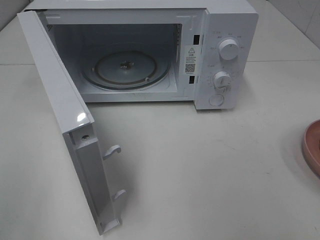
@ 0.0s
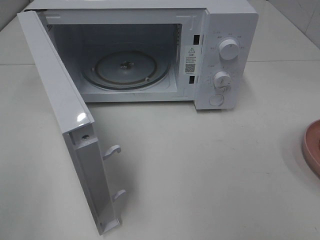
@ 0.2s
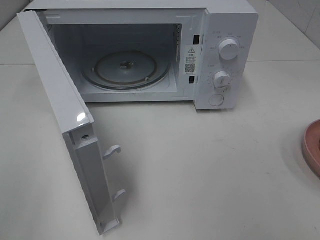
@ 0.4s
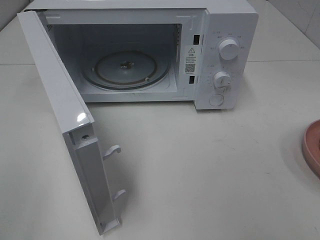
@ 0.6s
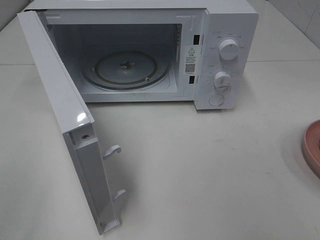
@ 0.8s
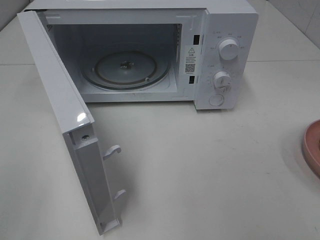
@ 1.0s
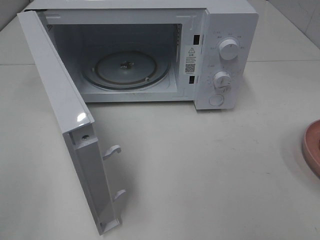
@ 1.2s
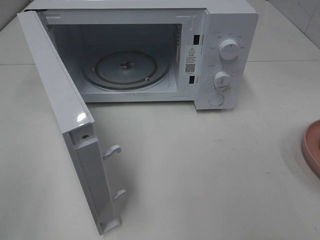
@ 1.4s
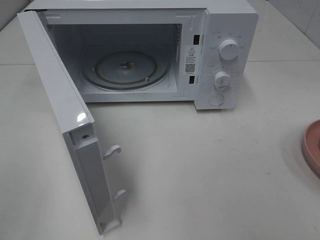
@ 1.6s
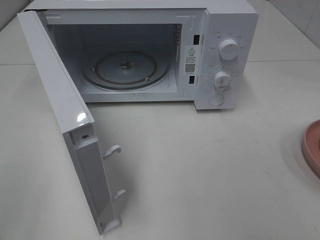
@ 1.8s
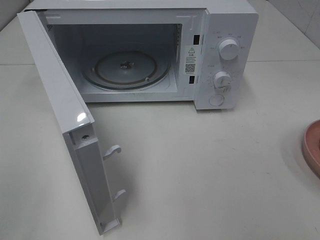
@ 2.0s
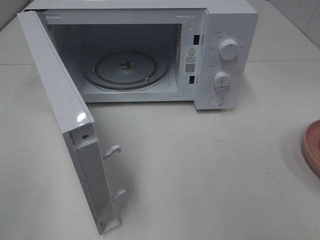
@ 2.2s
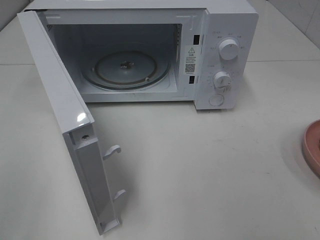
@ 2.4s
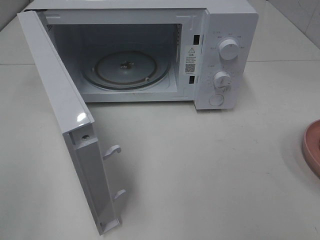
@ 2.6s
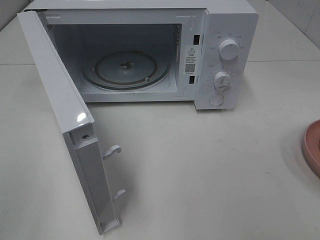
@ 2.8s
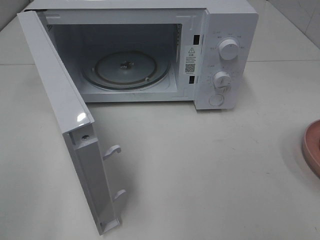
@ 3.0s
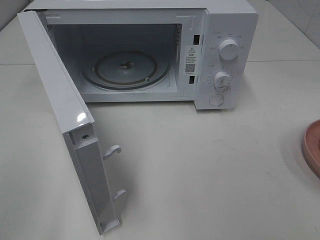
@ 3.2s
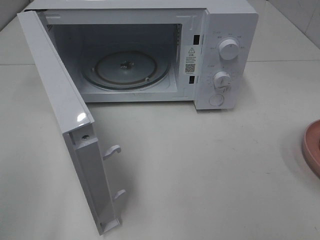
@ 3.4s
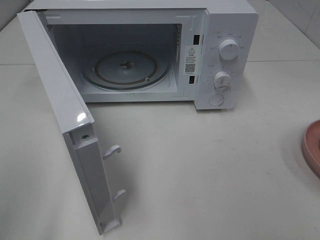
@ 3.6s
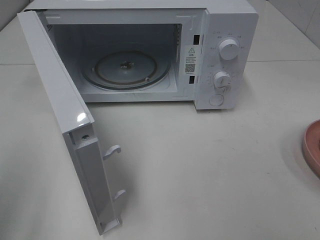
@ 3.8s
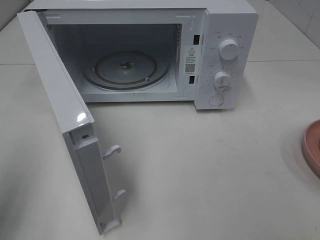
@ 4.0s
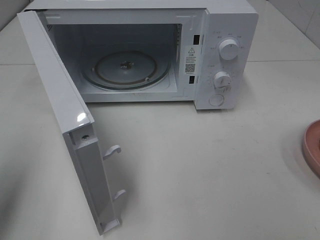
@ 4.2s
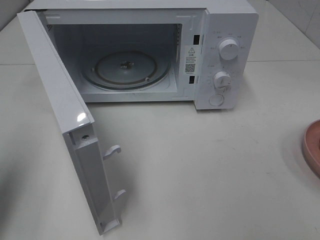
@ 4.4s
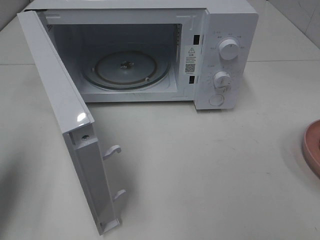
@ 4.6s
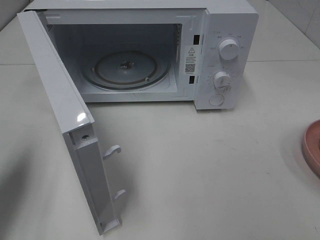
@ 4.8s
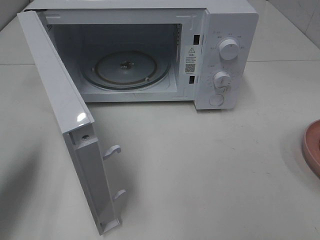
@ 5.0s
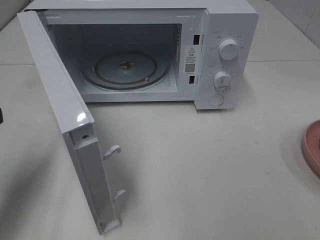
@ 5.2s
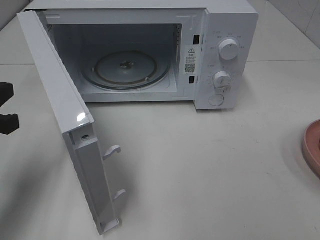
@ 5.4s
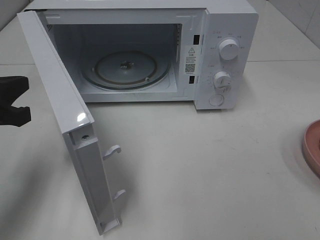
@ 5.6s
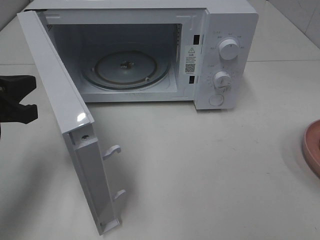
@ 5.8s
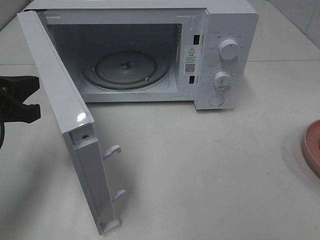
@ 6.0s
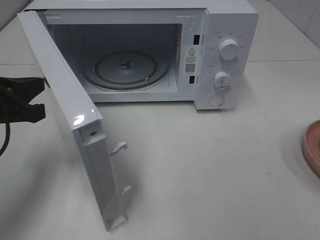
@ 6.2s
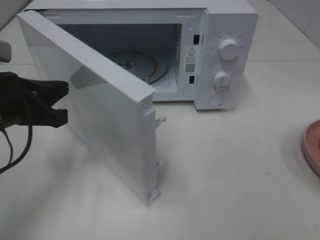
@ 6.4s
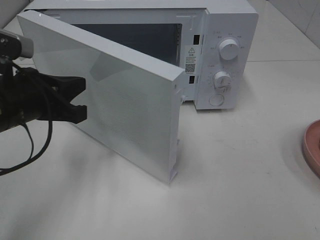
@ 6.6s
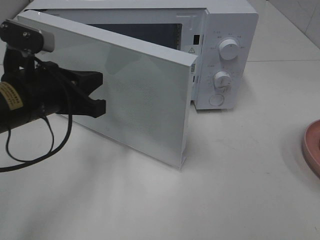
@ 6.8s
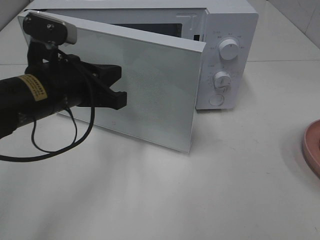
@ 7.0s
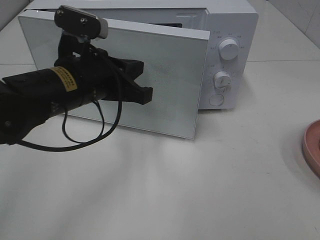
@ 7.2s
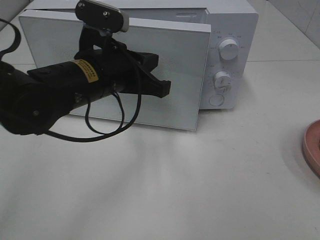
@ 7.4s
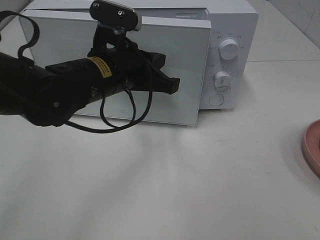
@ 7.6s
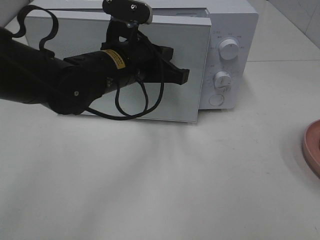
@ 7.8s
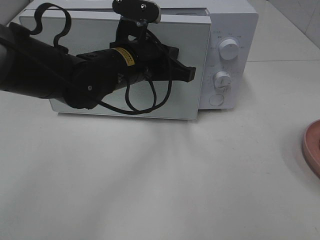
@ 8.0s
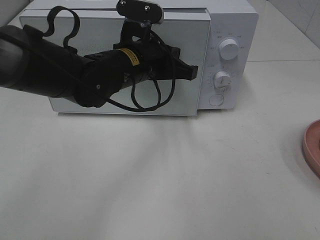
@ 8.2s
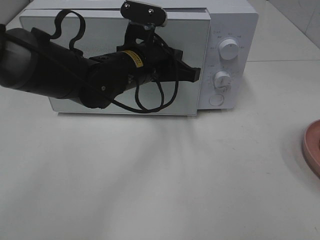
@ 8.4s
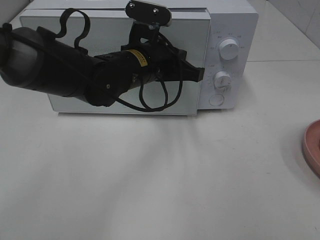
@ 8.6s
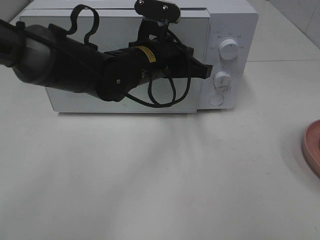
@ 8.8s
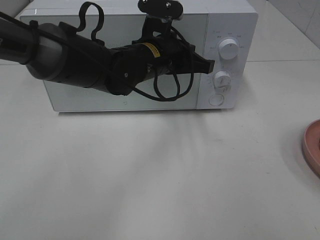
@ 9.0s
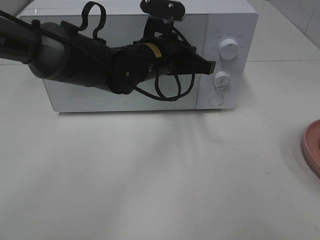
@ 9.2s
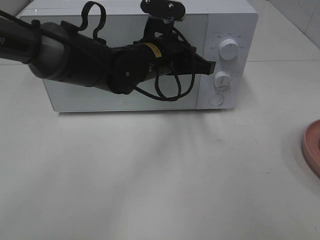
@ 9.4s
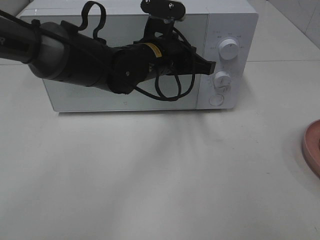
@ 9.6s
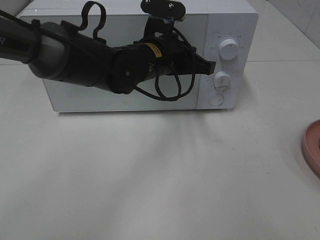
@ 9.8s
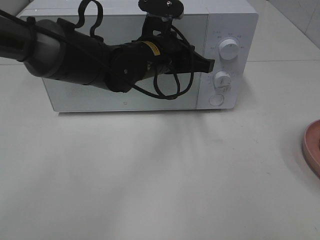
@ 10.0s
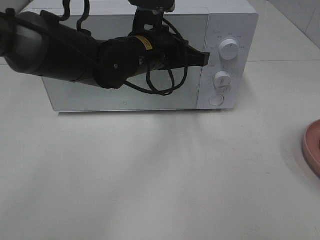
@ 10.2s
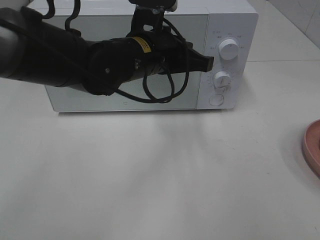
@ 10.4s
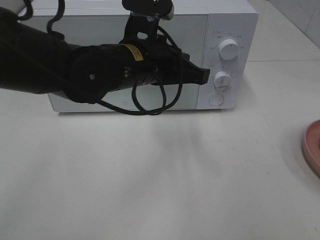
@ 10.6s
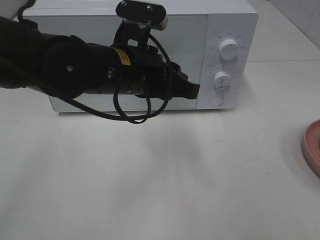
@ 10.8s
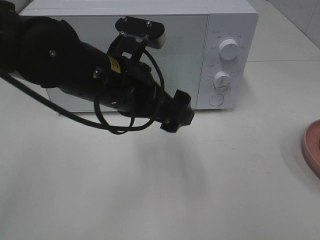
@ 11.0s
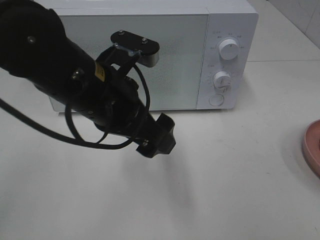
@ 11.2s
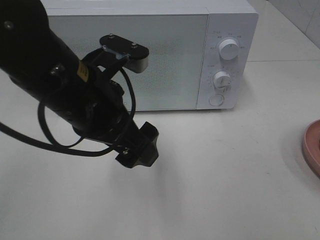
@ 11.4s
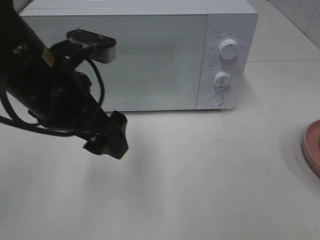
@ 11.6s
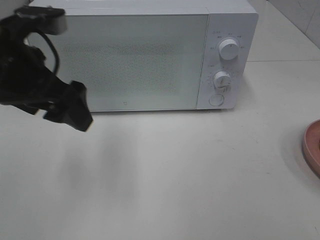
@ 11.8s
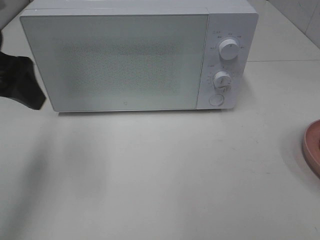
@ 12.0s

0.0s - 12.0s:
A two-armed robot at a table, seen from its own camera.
Task of the whole recording: Heat Sandwich.
Step, 0.0s - 10.2s: Left hand: close the microwave door.
3.0s - 4.4s: The left gripper shifts about 15 cm forward, and closes its fingers.
4.4s - 6.0s: The left gripper heads forward, to the right and downward, covering some 15 cm.
6.0s - 7.6s: The left gripper shifts approximately 20 cm to the right.
7.6s - 9.0s: The left gripper moves forward and to the right, roughly 10 cm.
9.0s - 10.4s: The left gripper moves roughly 5 cm.
10.4s - 12.0s: The left gripper travels to the left by about 25 cm, and opens.

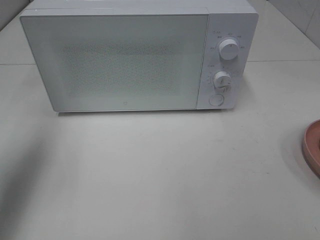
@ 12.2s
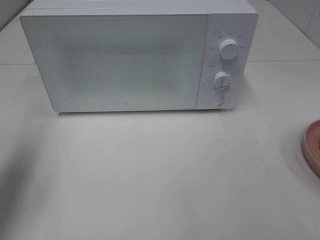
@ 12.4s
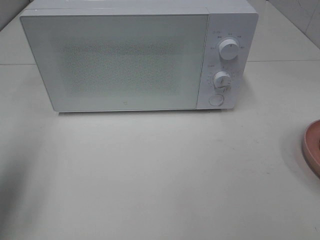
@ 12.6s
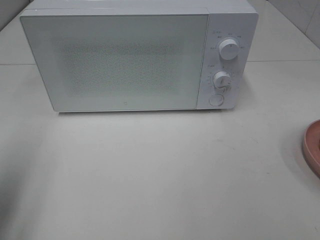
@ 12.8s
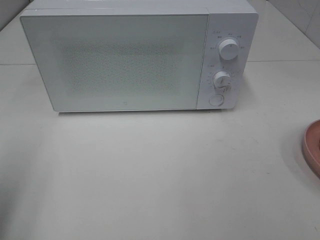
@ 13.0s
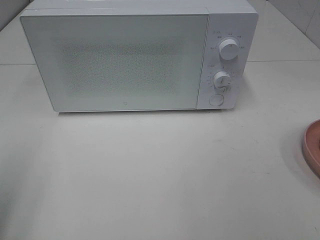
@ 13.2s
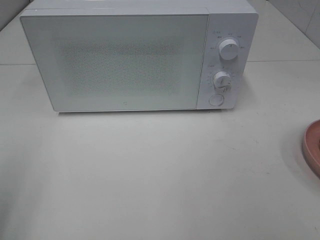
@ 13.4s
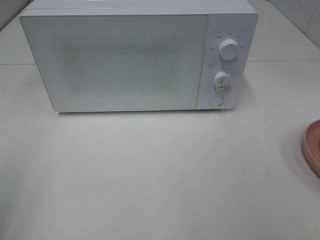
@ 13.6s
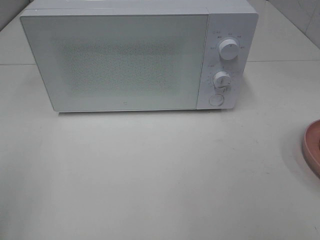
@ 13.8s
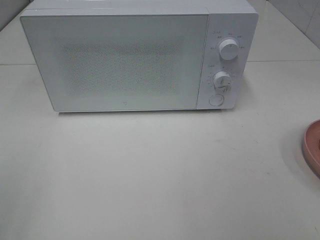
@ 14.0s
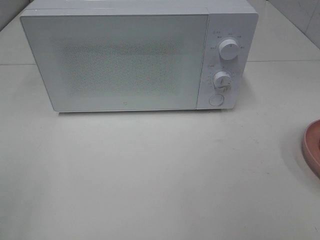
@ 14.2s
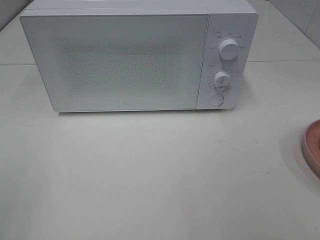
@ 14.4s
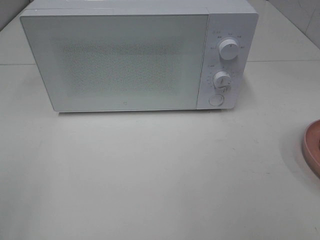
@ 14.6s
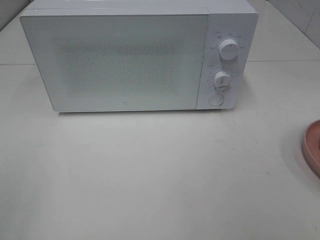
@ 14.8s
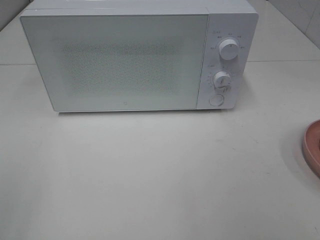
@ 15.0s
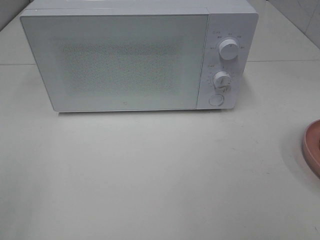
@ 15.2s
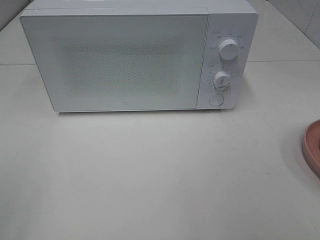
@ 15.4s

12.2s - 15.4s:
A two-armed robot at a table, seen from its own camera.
Task of the whole recording: Heat Sandwich.
12.2s - 13.8s: The left gripper moves backward, roughly 20 cm.

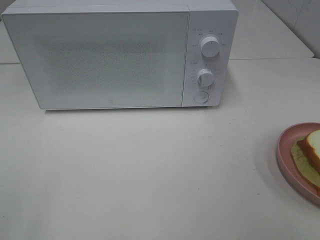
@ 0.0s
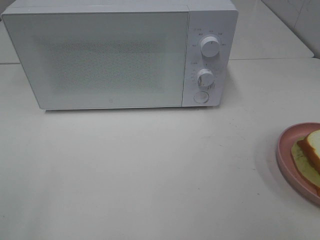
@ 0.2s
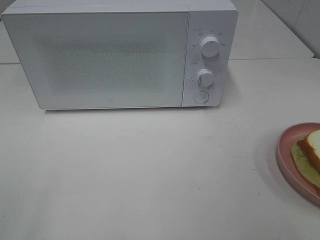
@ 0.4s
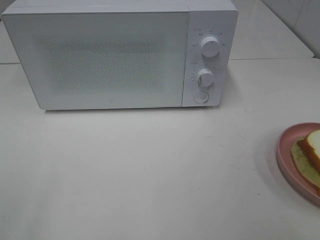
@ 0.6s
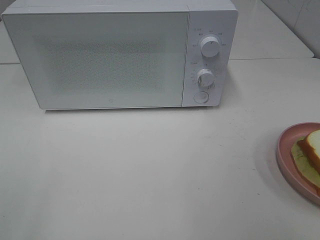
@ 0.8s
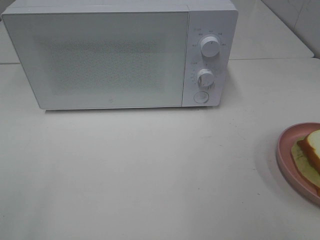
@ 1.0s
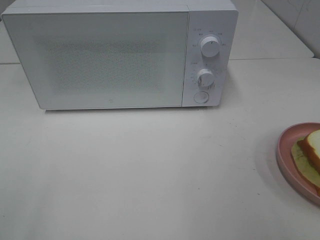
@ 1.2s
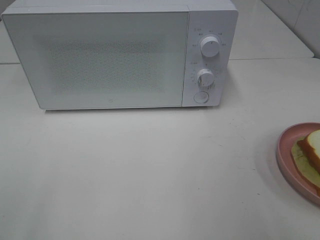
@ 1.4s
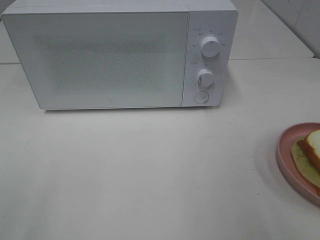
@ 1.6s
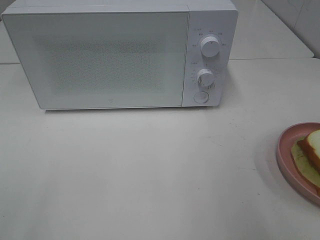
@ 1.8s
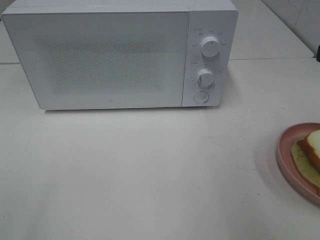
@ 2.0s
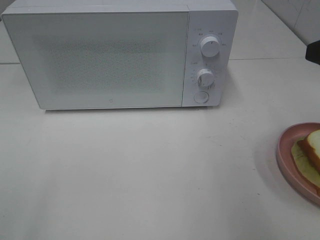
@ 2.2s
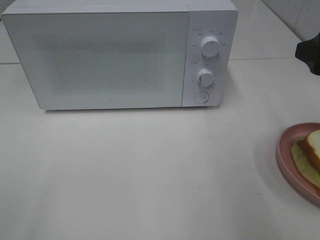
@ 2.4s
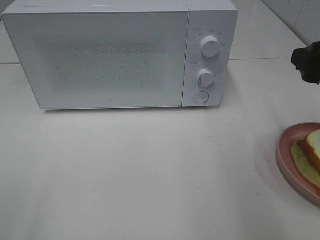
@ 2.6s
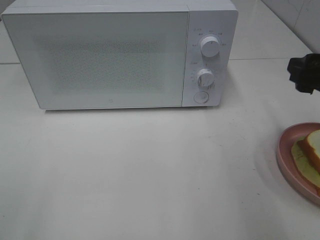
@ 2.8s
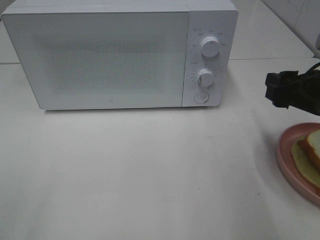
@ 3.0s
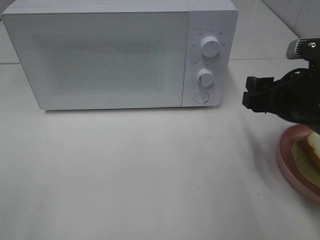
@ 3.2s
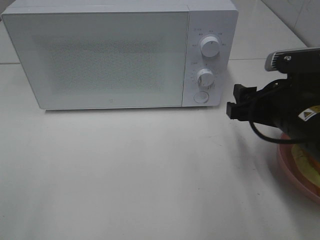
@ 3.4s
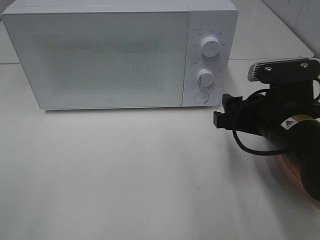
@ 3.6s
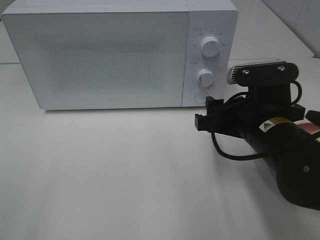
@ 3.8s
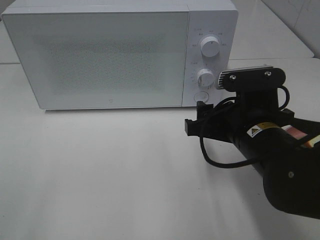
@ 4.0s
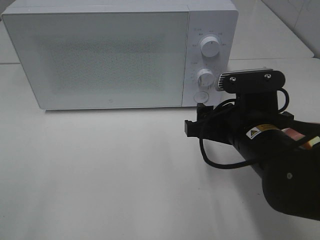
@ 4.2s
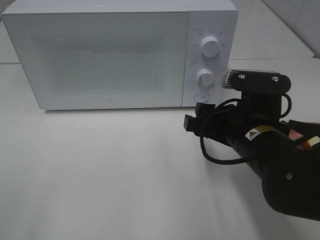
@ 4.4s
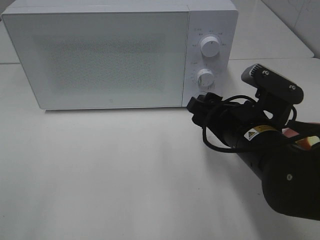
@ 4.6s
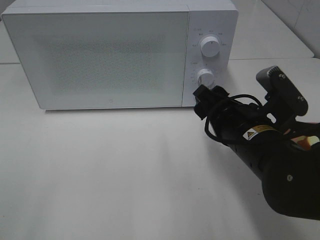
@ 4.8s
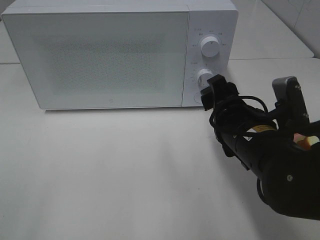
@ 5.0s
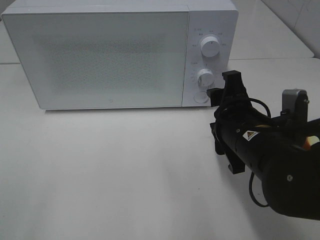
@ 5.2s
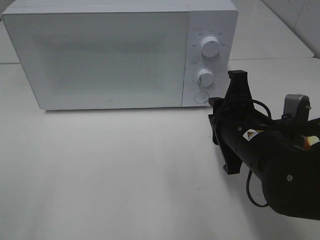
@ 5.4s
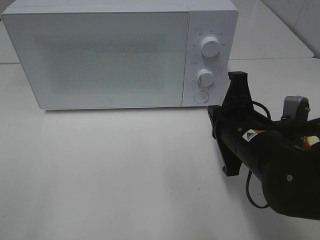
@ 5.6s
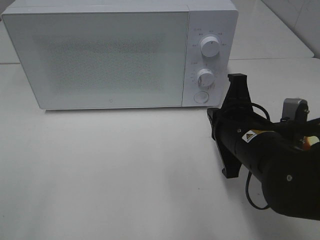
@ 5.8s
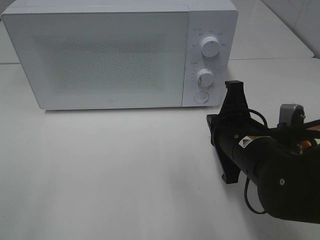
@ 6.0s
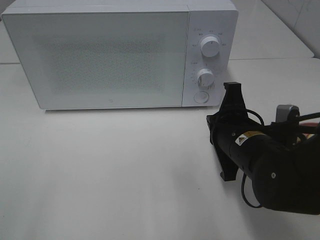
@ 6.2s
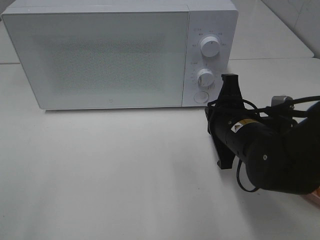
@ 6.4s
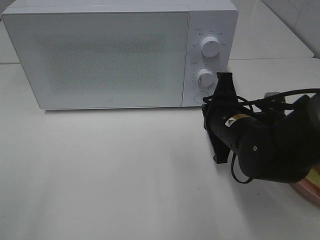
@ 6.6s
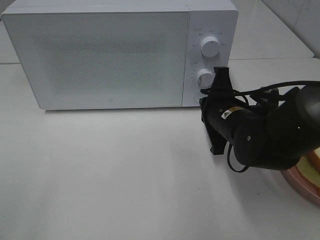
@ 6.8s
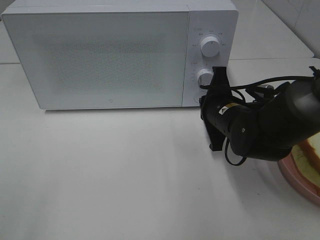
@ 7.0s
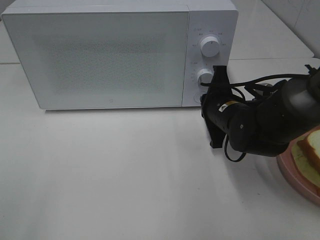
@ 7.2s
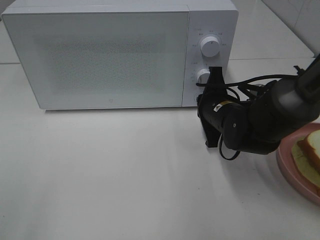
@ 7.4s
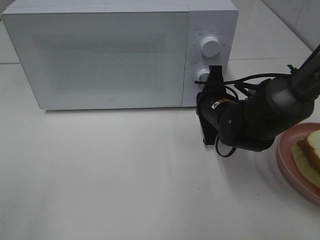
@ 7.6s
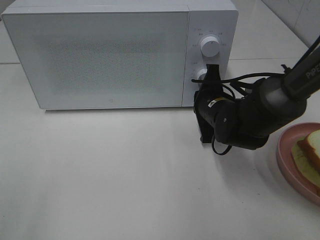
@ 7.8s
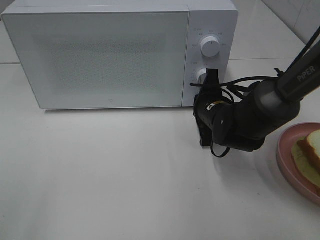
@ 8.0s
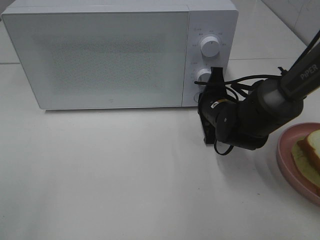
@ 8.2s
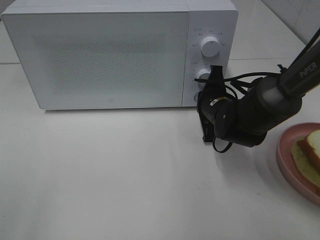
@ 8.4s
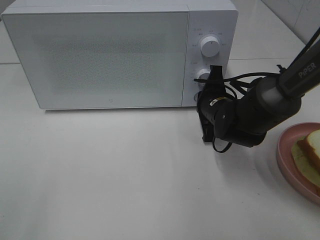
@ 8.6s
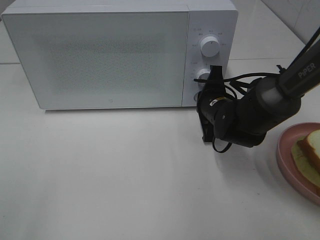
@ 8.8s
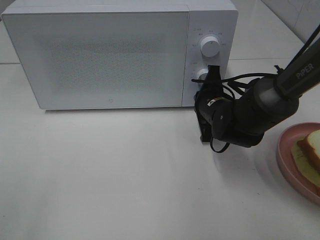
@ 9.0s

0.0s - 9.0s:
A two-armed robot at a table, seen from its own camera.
Task of the whole recording: Heat Sandwich.
1.6s - 3.0s: The right gripper is displaced downward and forward by roughly 15 cm.
3.0s - 4.4s: The right gripper heads to the left, covering some 10 cm.
4.4s - 6.0s: The right gripper closes its fingers.
6.0s - 7.6s: The right gripper shifts about 10 cm forward.
7.6s - 9.0s: The grippers make only small movements.
